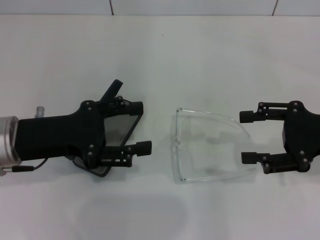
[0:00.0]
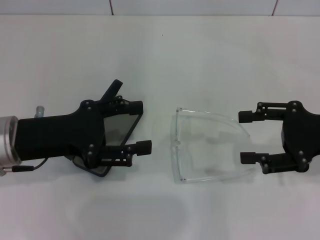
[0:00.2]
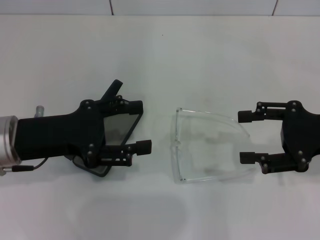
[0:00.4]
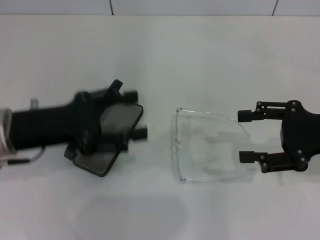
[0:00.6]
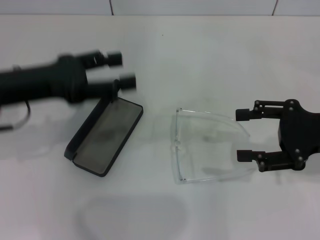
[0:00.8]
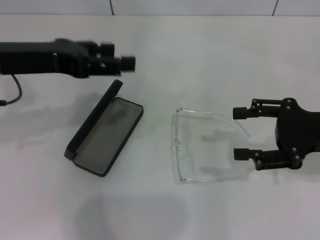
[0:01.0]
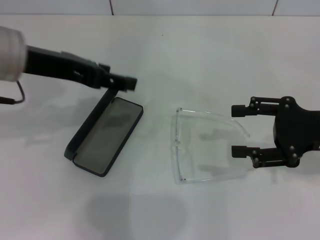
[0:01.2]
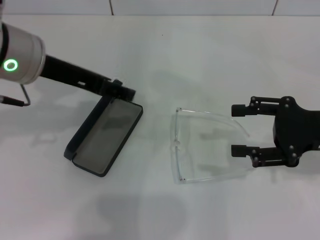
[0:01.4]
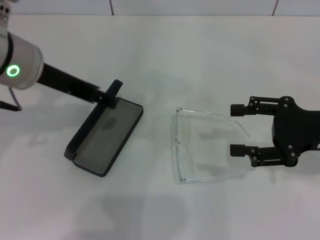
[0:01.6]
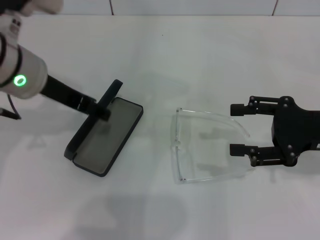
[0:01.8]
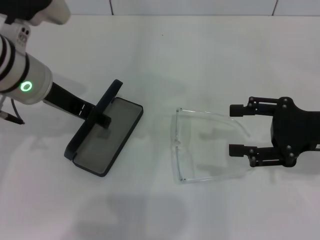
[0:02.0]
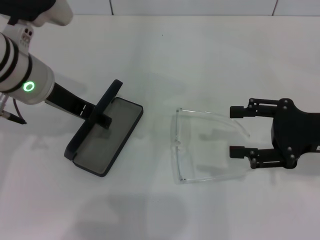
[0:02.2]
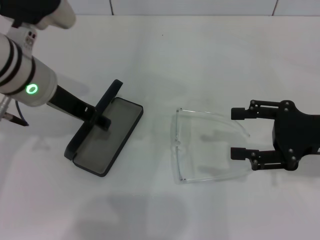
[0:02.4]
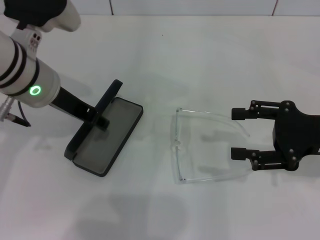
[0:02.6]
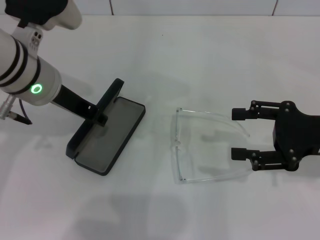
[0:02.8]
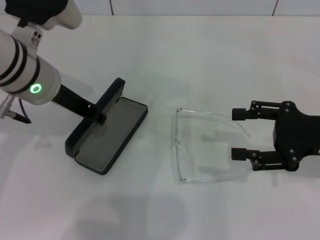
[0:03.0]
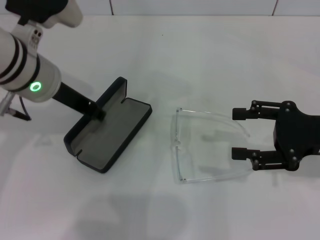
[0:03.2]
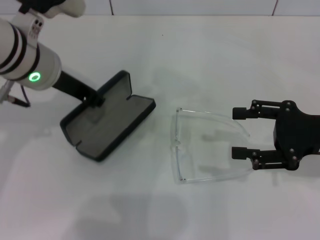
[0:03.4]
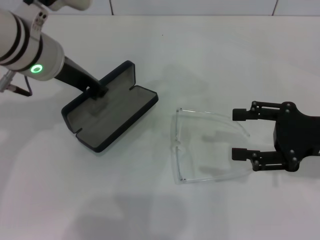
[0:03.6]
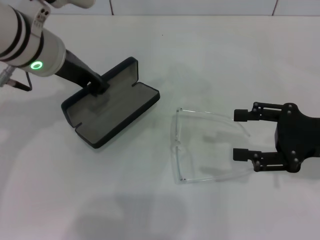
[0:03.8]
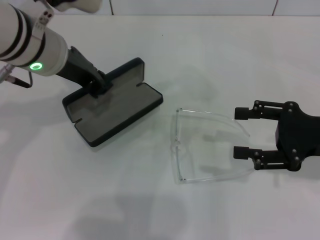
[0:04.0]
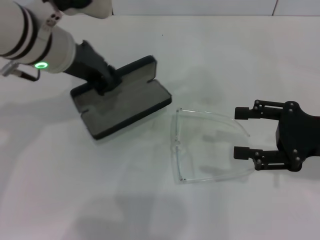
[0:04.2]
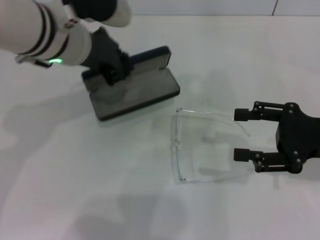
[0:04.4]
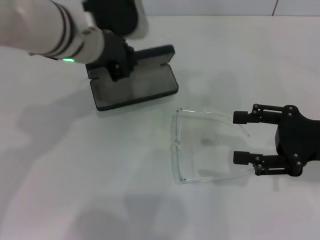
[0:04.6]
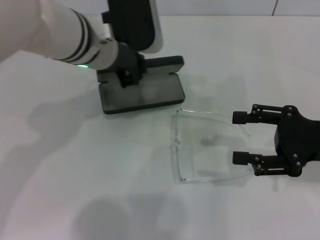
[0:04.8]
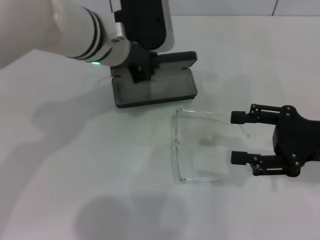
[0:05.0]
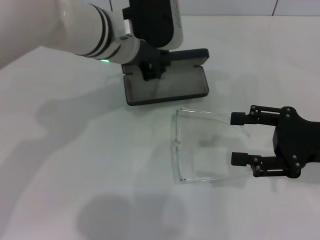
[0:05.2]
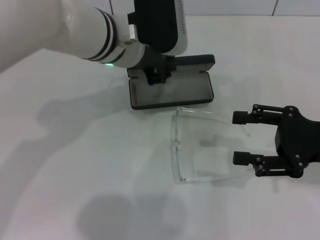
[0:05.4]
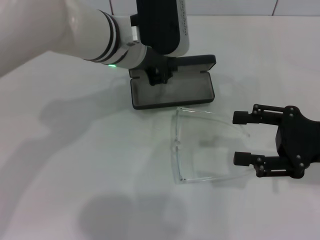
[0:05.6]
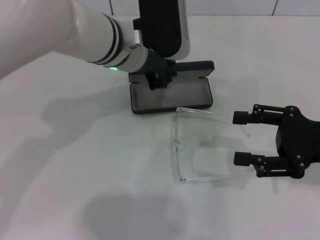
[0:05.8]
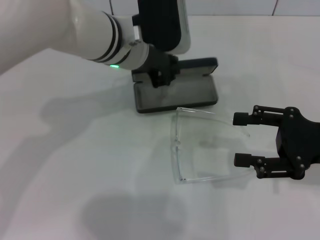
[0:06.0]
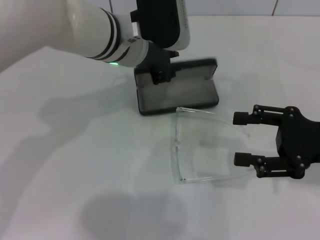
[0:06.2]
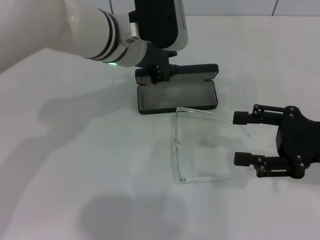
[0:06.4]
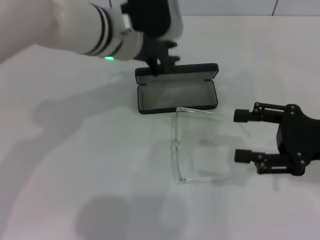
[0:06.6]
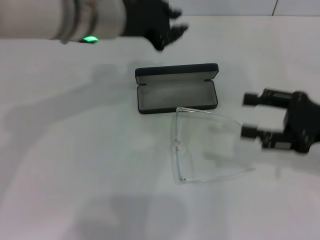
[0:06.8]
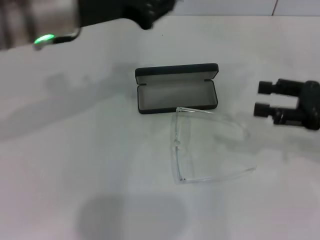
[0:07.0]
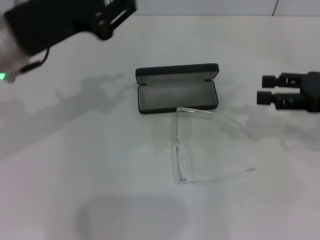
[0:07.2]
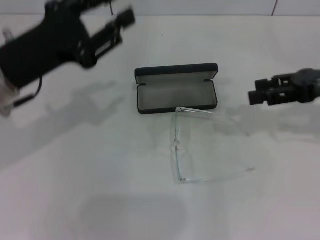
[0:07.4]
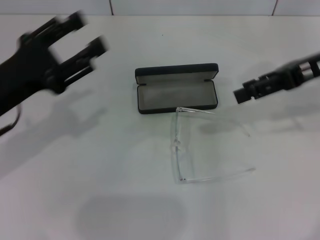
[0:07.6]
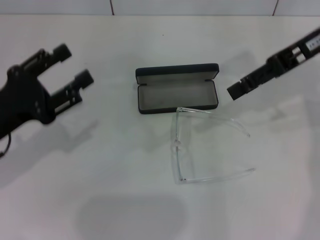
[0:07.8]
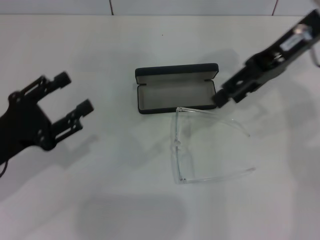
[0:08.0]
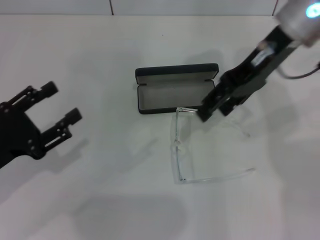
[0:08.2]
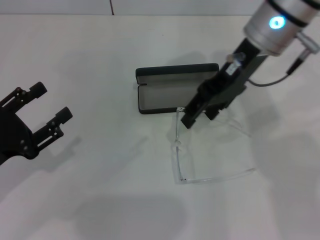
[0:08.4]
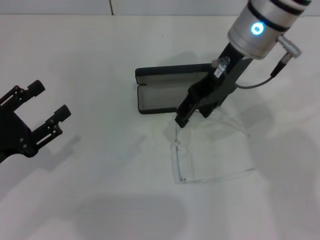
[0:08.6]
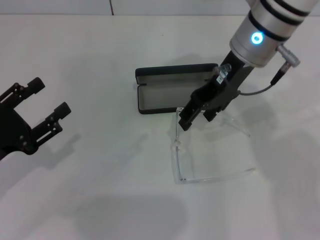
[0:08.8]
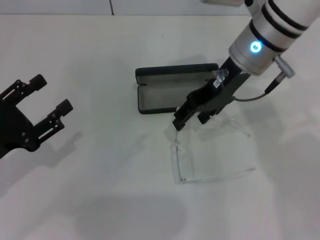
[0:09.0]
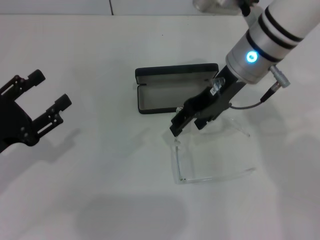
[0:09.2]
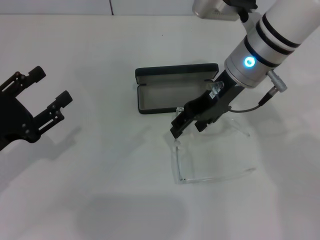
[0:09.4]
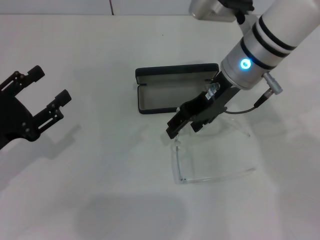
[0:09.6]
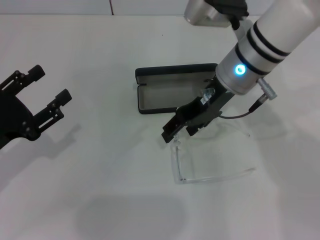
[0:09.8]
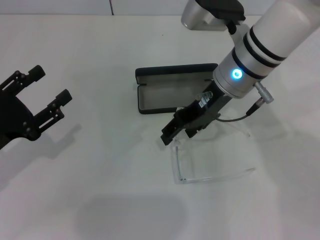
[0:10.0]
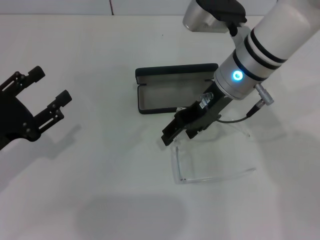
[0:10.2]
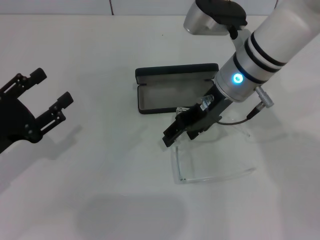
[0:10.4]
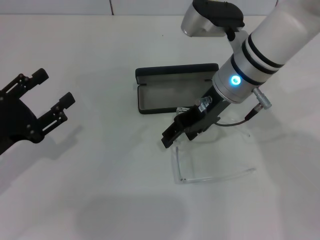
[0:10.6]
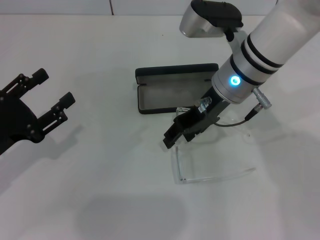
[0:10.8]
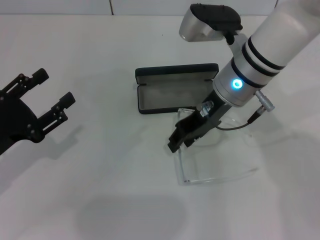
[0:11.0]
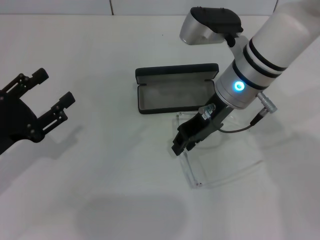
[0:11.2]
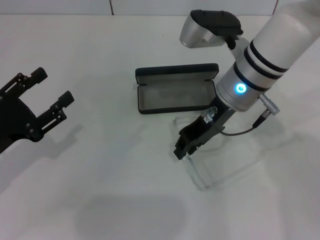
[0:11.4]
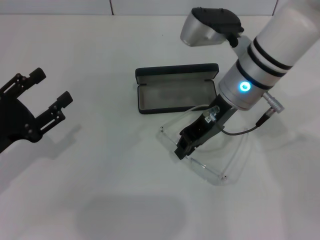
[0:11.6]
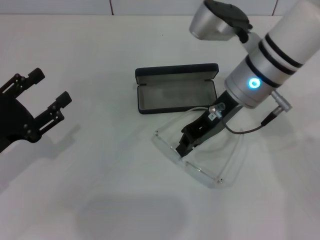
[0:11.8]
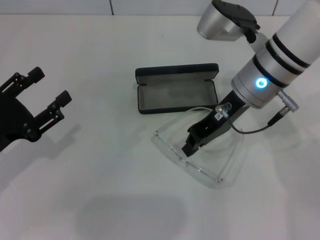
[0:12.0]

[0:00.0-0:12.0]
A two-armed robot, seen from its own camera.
Step, 0:00.0 to 0:03.0: Grab the glasses case with your left hand.
Step, 0:03.2 to 0:06.4: Place the glasses case in the center of the table with your left hand.
0:00.0 to 0:01.6: The left gripper shifts some 10 cm upward and forward.
0:01.6 to 0:03.0: The left gripper closes.
0:03.0 to 0:04.4: The left gripper moves roughly 5 cm.
0:04.4 to 0:06.0: The left gripper shifts roughly 5 cm to the right.
0:06.0 to 0:07.6: The right gripper travels upward and forward by about 15 cm, while the left gripper shifts roughly 20 cm to the left and backward.
0:07.6 to 0:09.0: The right gripper is displaced to the left by roughly 15 cm; the left gripper moves backward and downward, approximately 10 cm.
0:09.0 to 0:10.4: The grippers move only a little.
0:10.4 to 0:12.0: The right gripper closes.

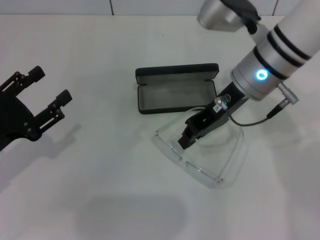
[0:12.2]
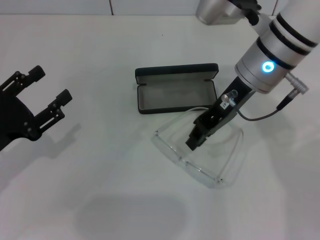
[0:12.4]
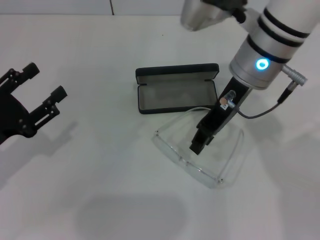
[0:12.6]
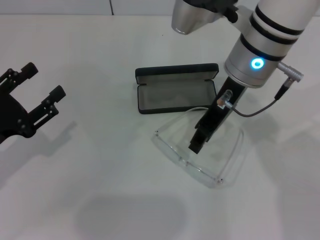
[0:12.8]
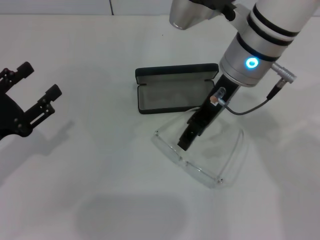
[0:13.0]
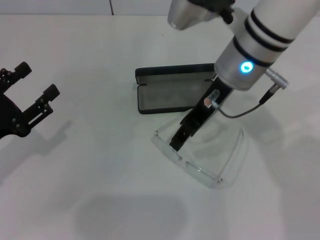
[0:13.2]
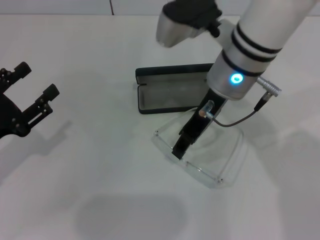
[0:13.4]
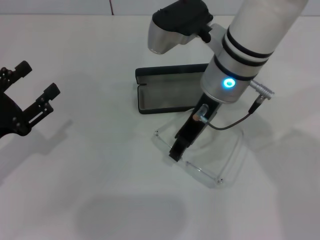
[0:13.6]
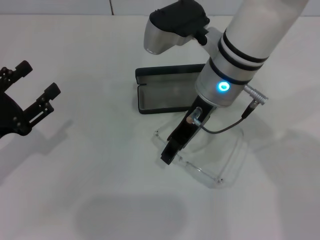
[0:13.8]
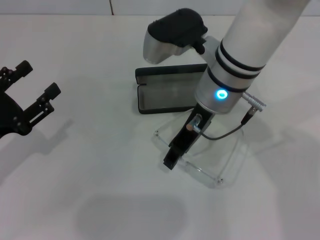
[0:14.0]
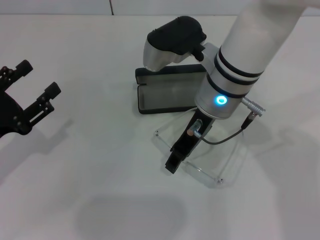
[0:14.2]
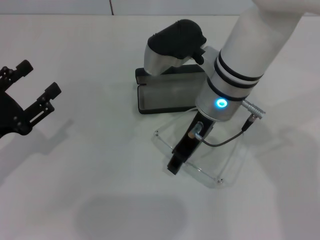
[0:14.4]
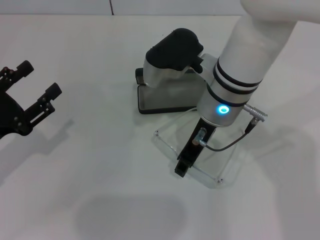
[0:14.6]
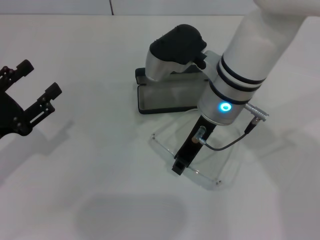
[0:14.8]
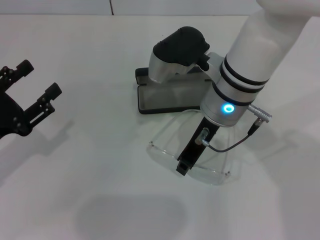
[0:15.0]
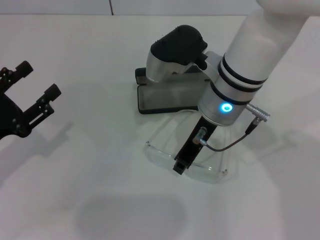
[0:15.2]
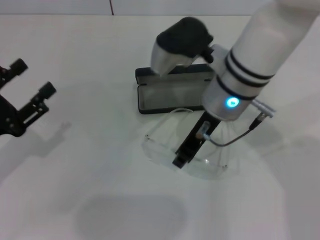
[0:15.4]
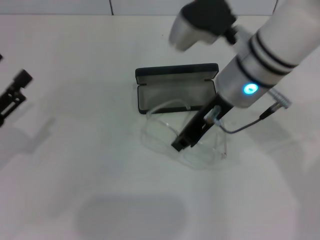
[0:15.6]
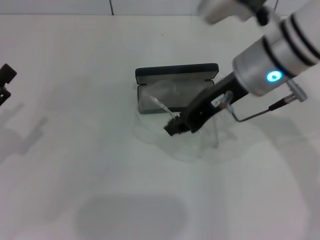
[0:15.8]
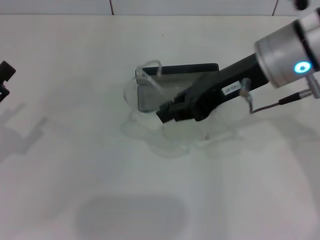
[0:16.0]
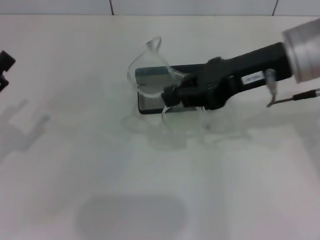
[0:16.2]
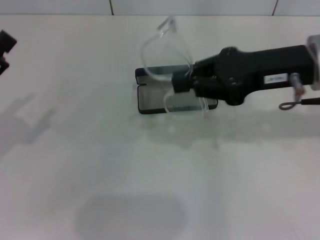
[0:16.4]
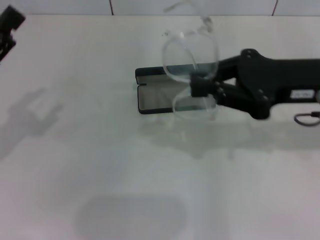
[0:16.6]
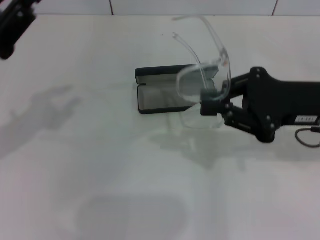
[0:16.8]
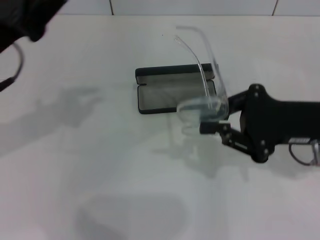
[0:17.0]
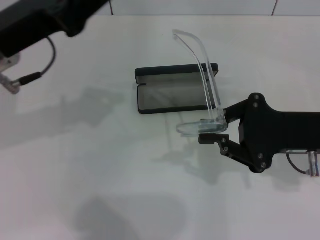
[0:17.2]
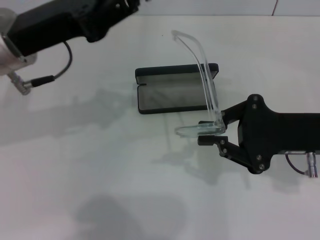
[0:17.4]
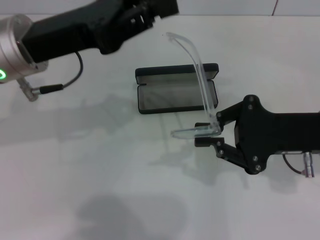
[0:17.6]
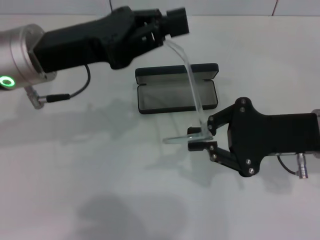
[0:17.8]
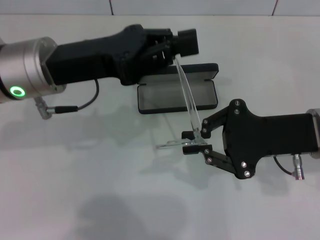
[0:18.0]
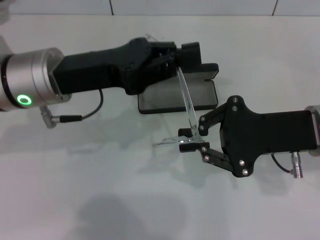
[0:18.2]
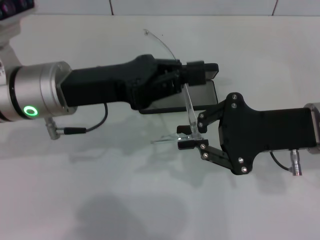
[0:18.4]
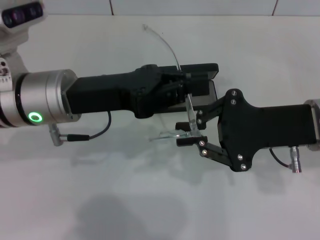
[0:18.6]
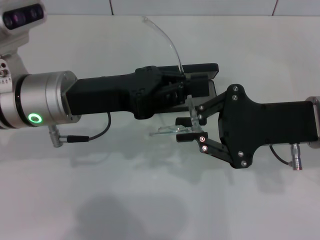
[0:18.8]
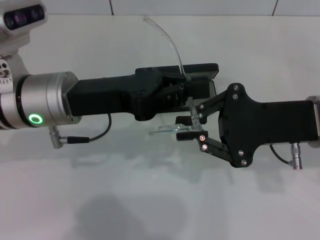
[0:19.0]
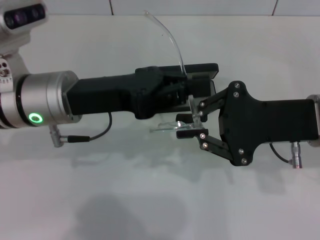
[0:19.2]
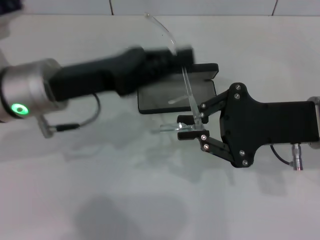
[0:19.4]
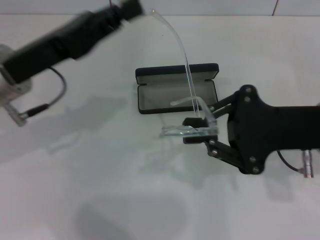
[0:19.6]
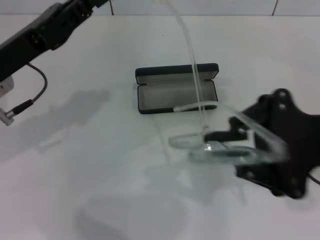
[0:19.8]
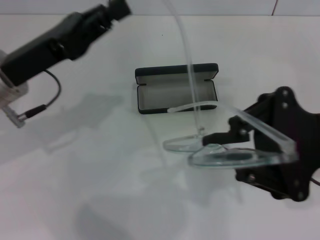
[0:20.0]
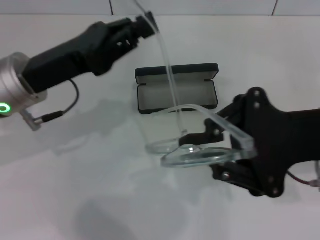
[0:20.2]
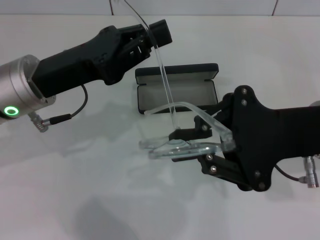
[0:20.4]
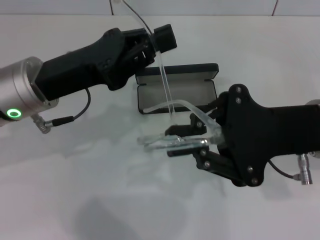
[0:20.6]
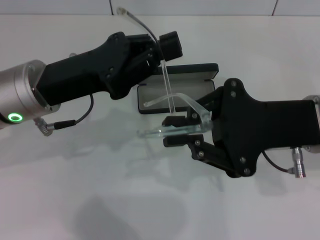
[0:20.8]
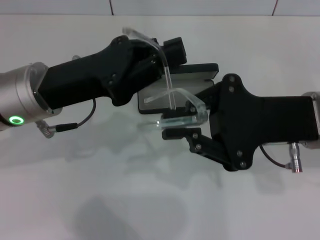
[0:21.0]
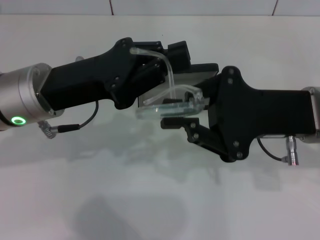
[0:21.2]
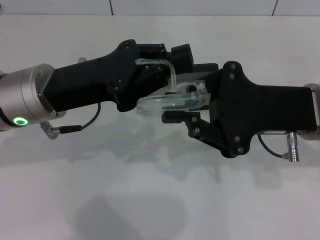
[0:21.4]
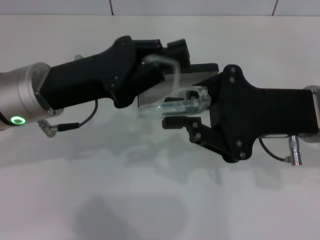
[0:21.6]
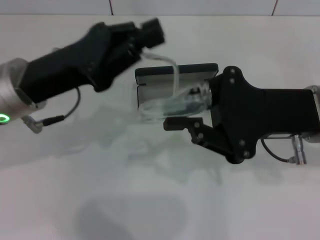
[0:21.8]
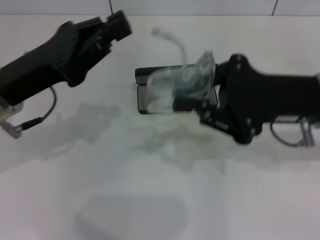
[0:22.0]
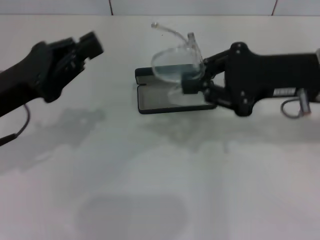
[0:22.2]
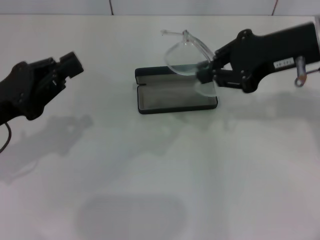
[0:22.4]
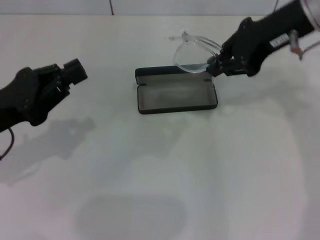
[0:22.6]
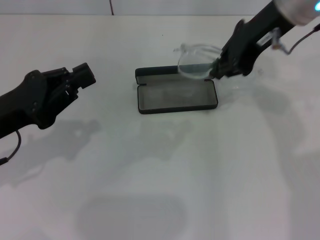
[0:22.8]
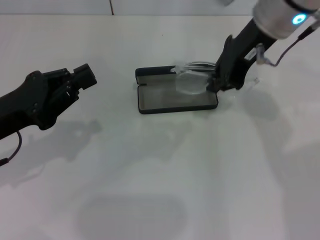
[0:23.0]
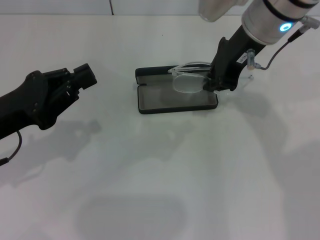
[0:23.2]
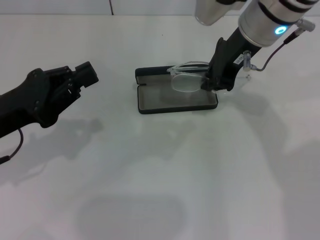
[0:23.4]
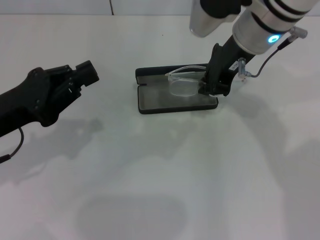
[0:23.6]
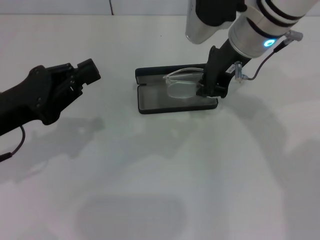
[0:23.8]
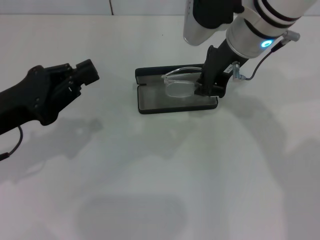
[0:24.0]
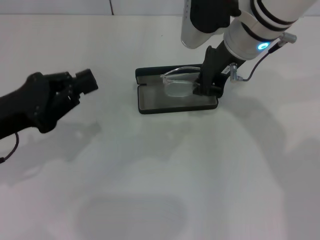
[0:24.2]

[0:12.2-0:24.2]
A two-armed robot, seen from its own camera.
Step, 0:12.2 to 0:14.8: Grab the eyeglass frame with your right hand.
Step, 0:15.0 to 0:21.4: Fold the frame with your left hand.
0:12.2 to 0:13.8: The right gripper moves to the left, some 5 cm, and opens its fingers.
0:13.8 to 0:15.2: The right gripper closes its fingers.
0:15.2 to 0:16.6: The right gripper goes some 15 cm to the right. The left gripper moves upward, some 5 cm.
0:16.6 to 0:18.2: The left gripper is displaced to the right and forward by approximately 15 cm, and closes; the right gripper is displaced downward by some 5 cm.
0:18.2 to 0:19.8: The left gripper travels to the left by roughly 5 cm.
0:19.8 to 0:21.2: The left gripper travels to the right by about 5 cm.
0:21.2 to 0:22.6: The left gripper moves to the left, roughly 10 cm, while the right gripper shifts about 15 cm forward and upward.
0:22.6 to 0:24.2: The right gripper heads to the left and downward, covering roughly 10 cm.
